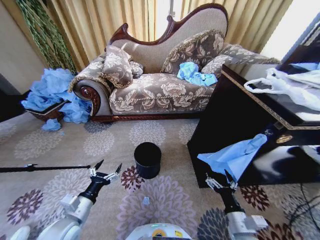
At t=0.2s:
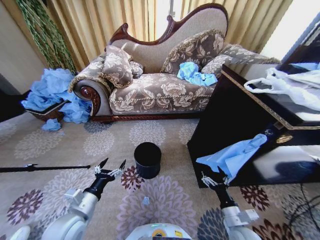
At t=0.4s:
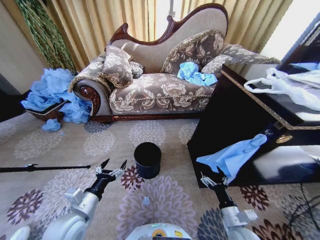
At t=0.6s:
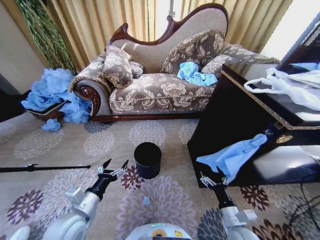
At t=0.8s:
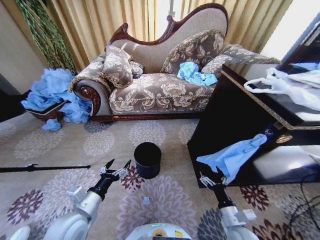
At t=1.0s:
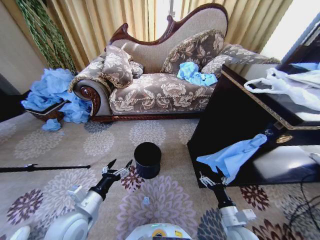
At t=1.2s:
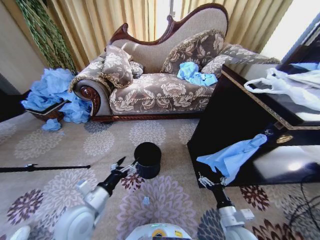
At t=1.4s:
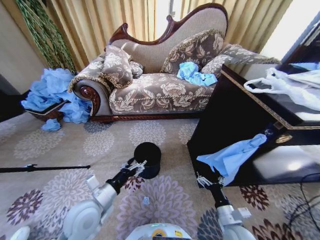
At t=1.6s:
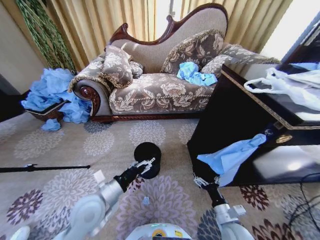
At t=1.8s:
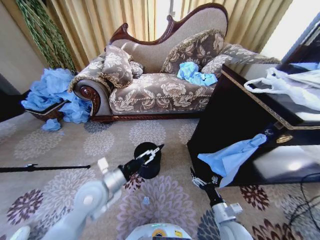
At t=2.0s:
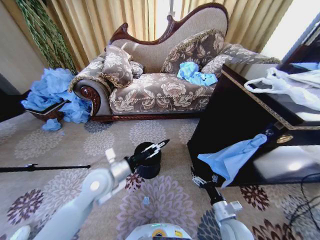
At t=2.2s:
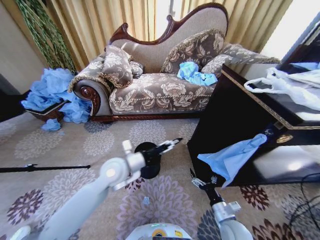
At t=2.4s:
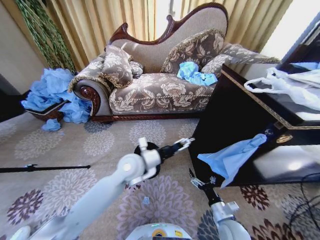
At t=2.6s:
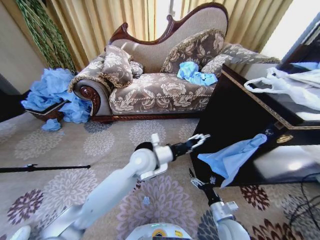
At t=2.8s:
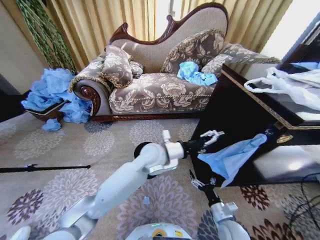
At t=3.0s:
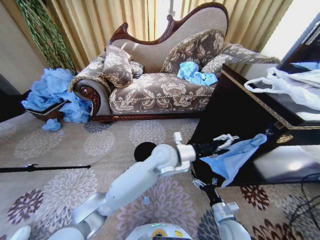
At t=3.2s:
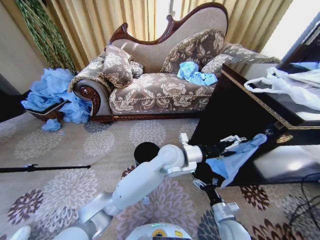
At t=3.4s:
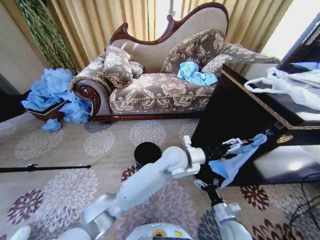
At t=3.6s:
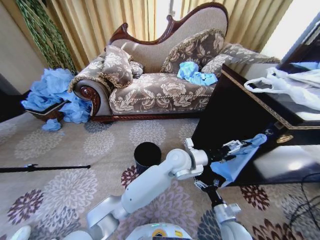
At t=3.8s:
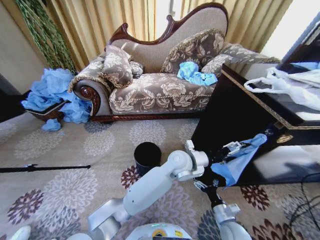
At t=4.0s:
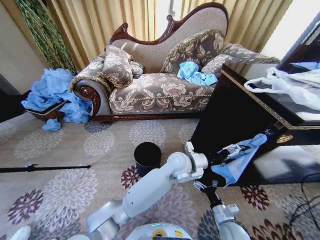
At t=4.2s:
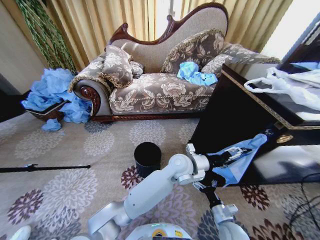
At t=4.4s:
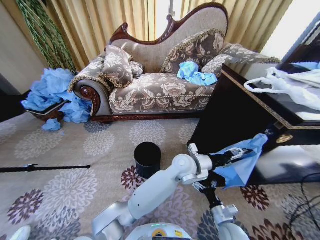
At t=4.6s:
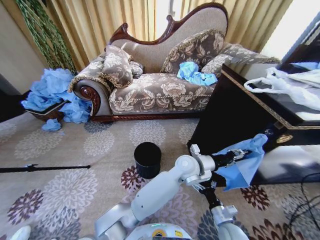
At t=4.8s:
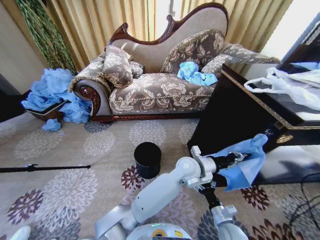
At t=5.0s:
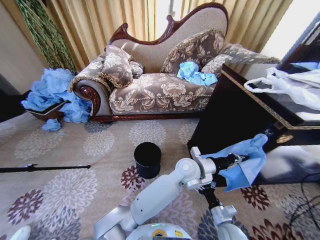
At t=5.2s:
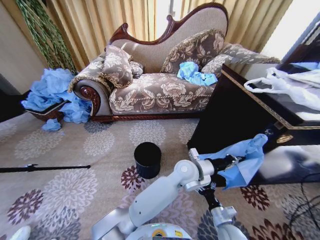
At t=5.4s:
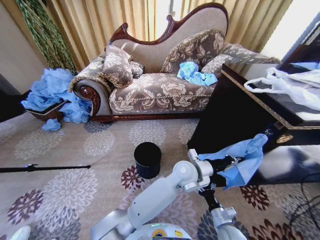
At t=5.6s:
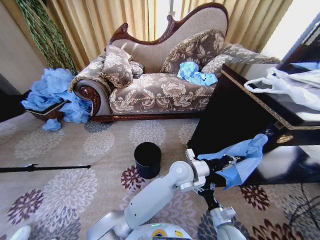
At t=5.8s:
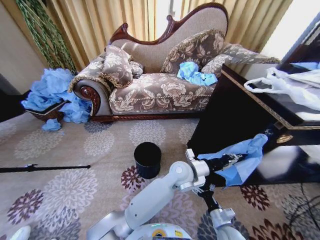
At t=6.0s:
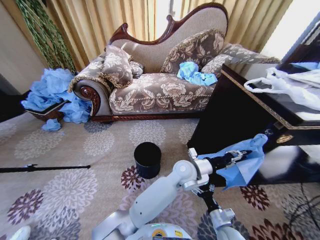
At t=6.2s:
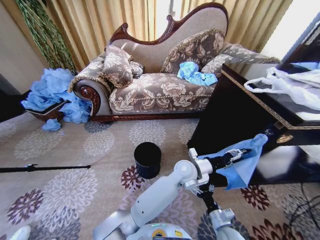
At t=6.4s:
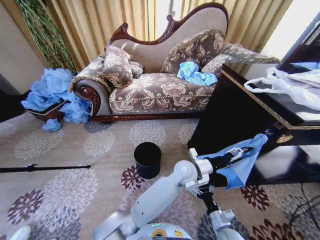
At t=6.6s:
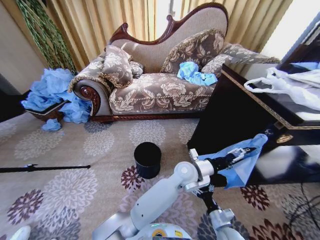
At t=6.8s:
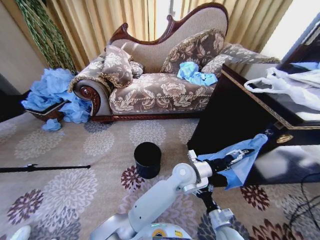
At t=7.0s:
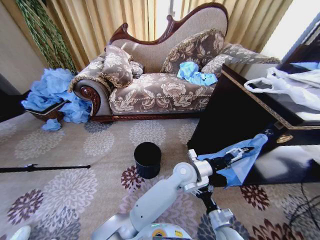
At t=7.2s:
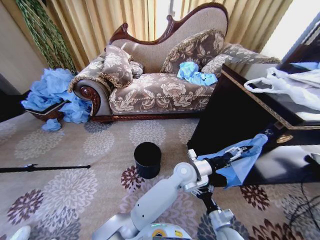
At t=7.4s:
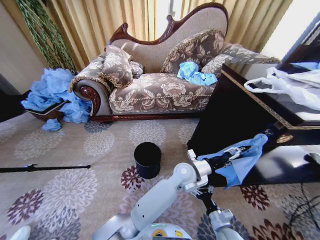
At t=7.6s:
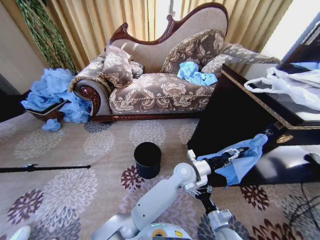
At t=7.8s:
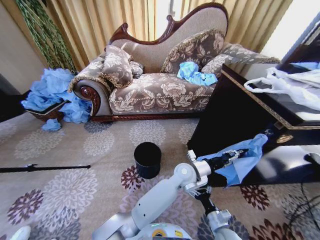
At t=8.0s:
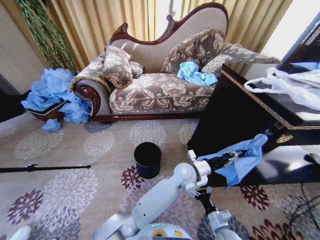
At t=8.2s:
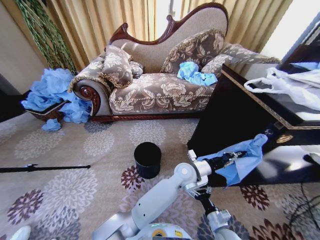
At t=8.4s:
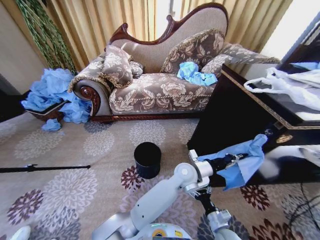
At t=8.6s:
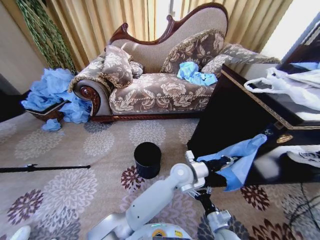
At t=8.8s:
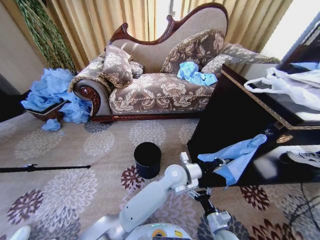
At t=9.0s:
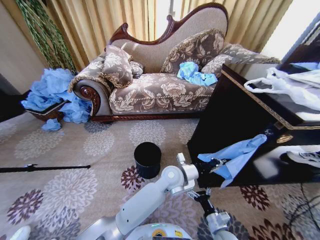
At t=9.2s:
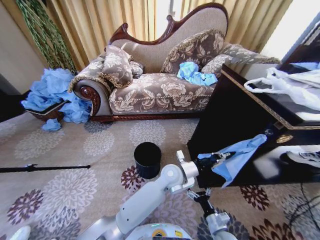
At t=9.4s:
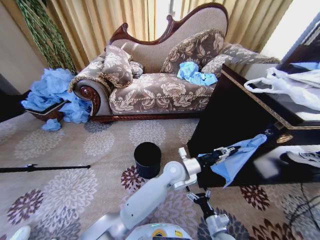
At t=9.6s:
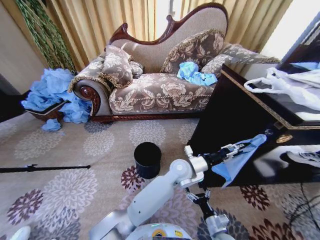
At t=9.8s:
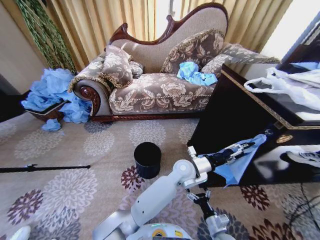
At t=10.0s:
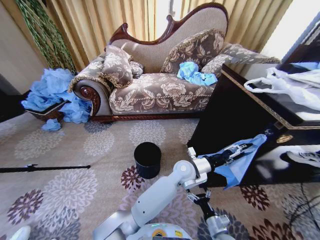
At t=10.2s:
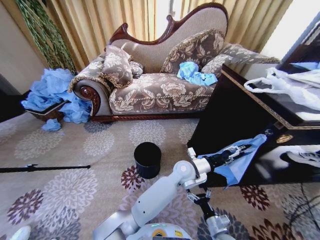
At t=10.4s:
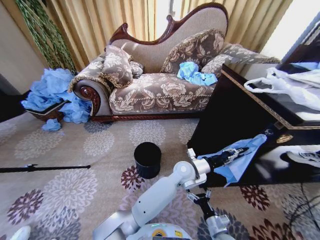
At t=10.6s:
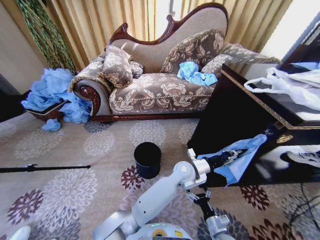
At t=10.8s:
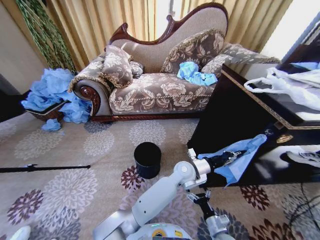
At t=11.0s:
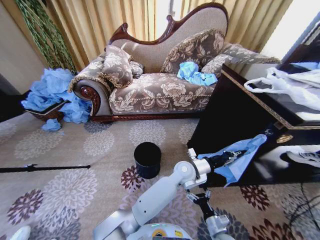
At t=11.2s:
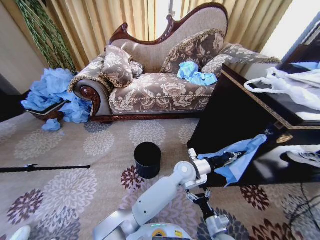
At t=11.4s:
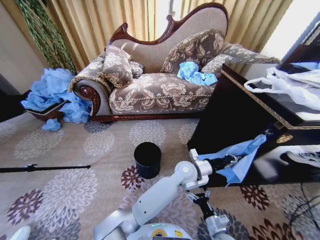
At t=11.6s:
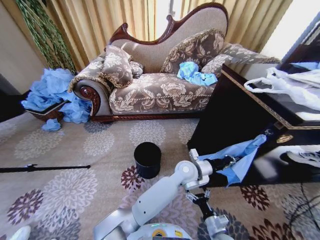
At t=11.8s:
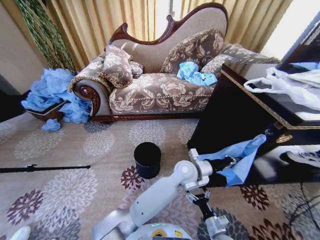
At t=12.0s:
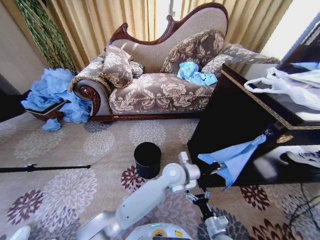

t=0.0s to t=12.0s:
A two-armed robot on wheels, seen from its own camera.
Task of the whole recording: Place a garbage bag over the trash bin.
t=1.6s to t=3.0s: The left gripper moves to the right and forward, some 25 cm.
t=3.0s to t=4.4s: The left gripper goes roughly 10 cm to the right and downward.
t=4.4s to t=6.0s: The left gripper closes, then reopens.
t=6.0s to t=7.6s: The grippers stay close to where they were, moving slightly.
t=7.6s to t=9.0s: The left gripper is displaced to the left by some 5 cm, and closes.
t=9.0s to t=10.4s: The left gripper travels to the right by about 5 cm, and opens.
t=10.4s to t=12.0s: The left gripper moves approximately 5 cm, and closes.

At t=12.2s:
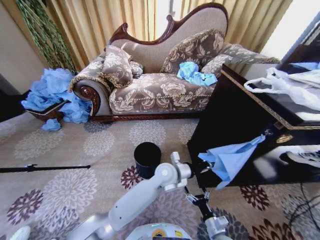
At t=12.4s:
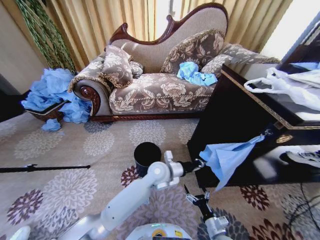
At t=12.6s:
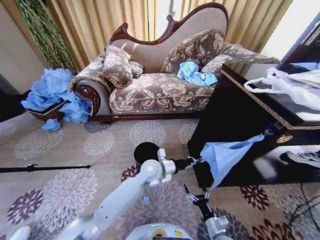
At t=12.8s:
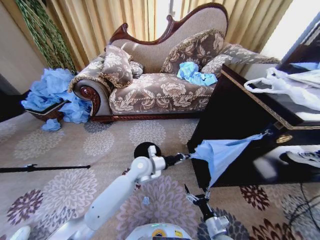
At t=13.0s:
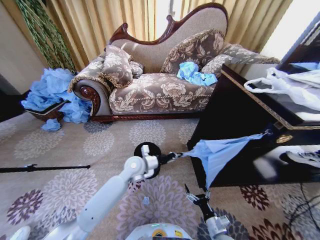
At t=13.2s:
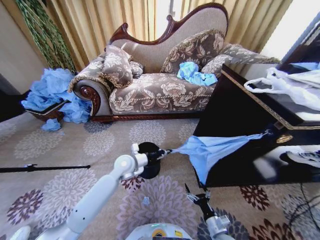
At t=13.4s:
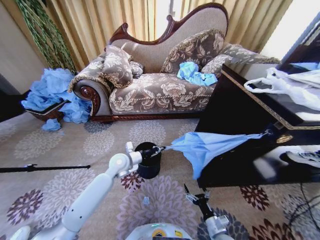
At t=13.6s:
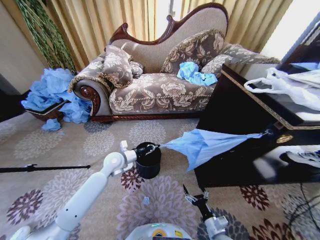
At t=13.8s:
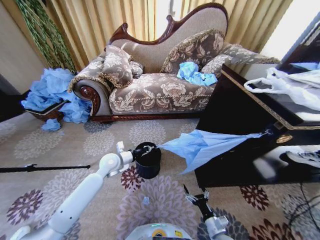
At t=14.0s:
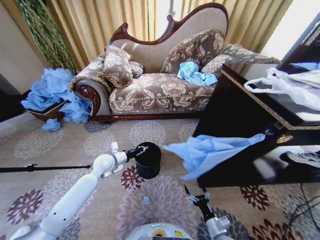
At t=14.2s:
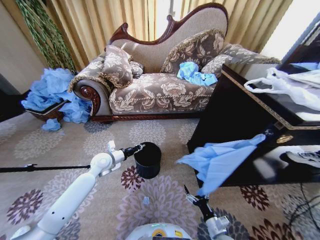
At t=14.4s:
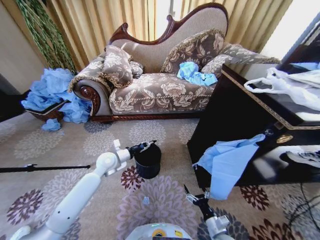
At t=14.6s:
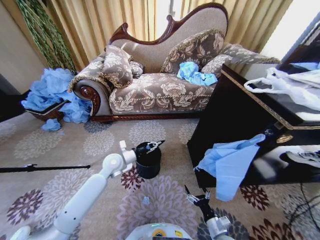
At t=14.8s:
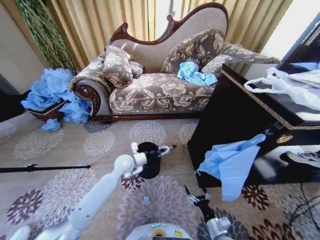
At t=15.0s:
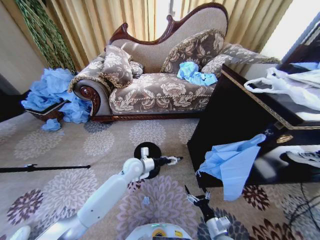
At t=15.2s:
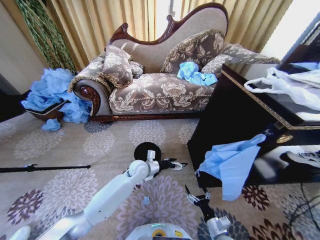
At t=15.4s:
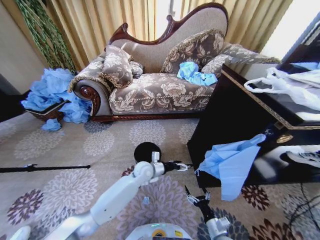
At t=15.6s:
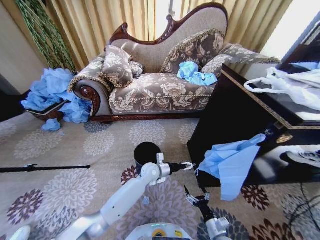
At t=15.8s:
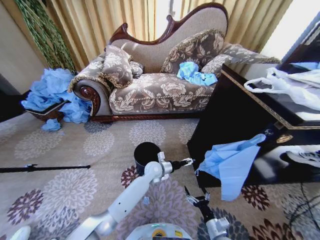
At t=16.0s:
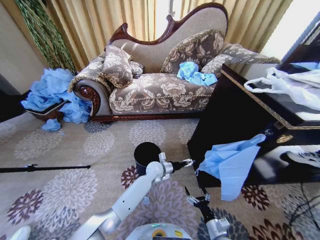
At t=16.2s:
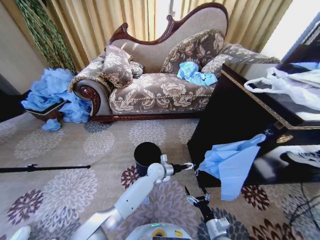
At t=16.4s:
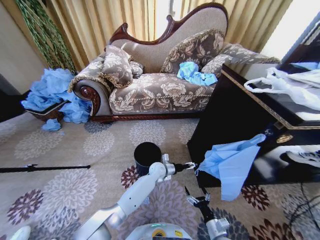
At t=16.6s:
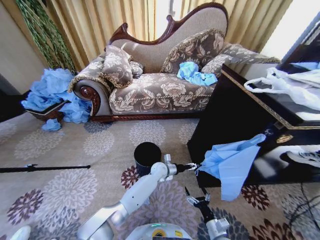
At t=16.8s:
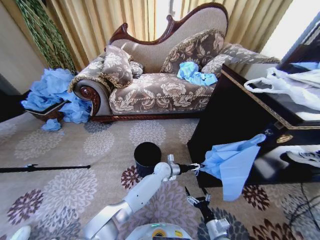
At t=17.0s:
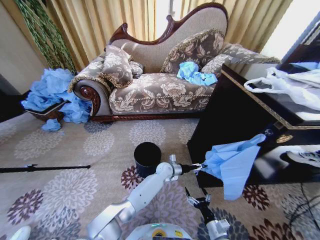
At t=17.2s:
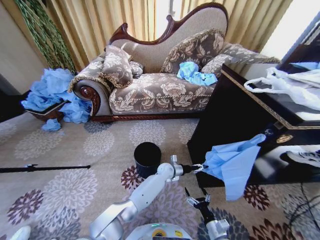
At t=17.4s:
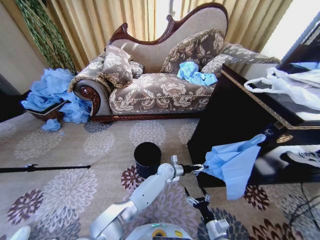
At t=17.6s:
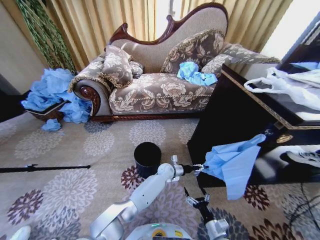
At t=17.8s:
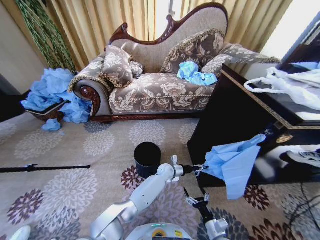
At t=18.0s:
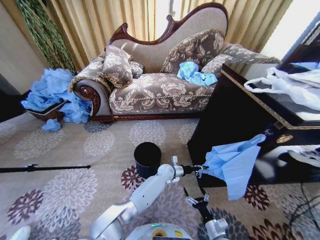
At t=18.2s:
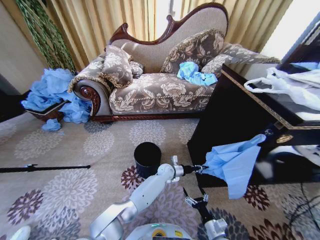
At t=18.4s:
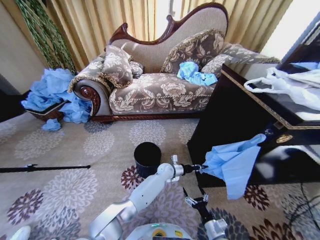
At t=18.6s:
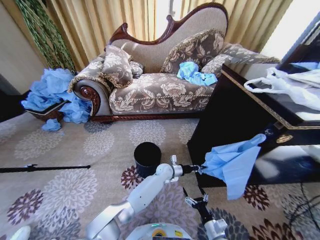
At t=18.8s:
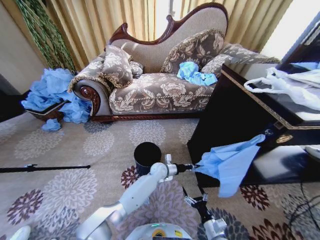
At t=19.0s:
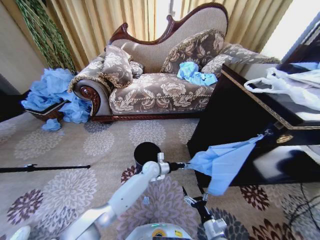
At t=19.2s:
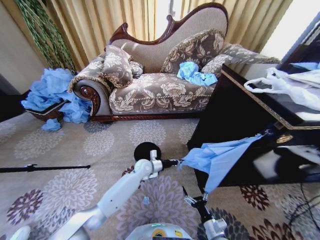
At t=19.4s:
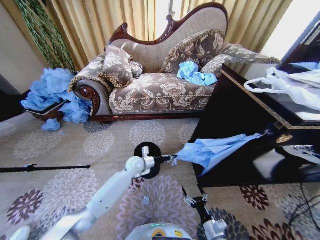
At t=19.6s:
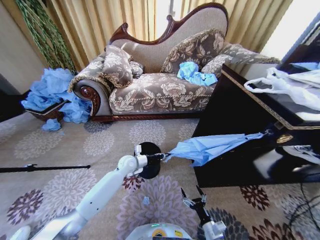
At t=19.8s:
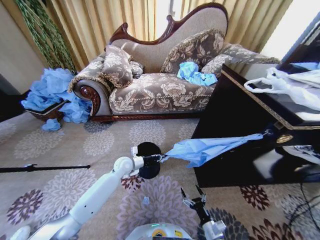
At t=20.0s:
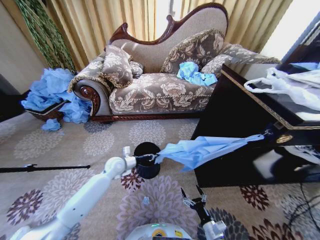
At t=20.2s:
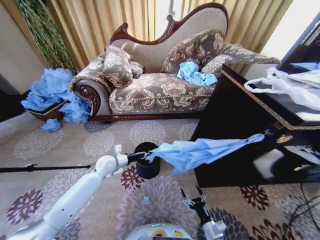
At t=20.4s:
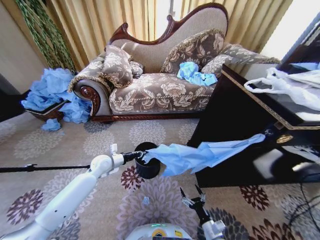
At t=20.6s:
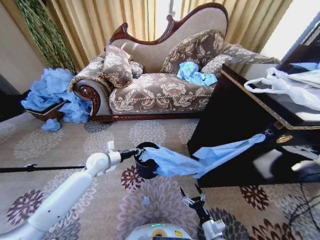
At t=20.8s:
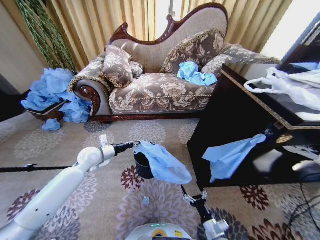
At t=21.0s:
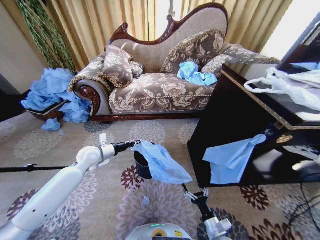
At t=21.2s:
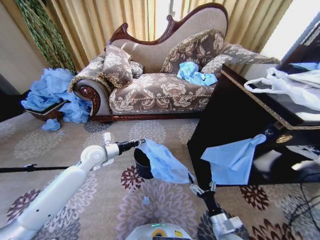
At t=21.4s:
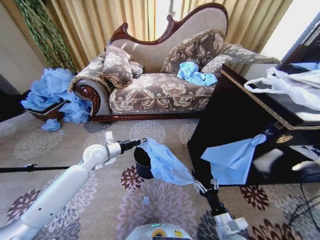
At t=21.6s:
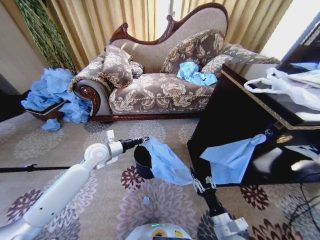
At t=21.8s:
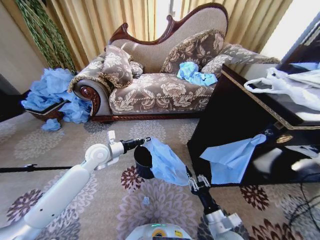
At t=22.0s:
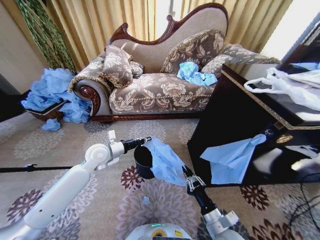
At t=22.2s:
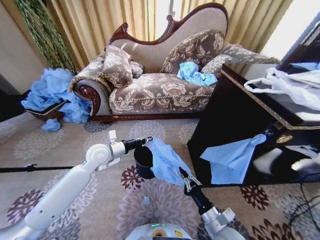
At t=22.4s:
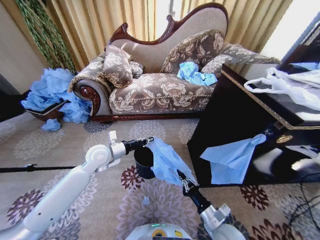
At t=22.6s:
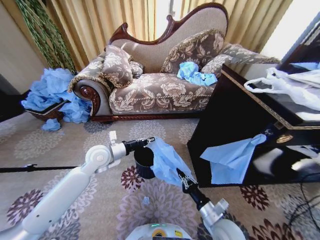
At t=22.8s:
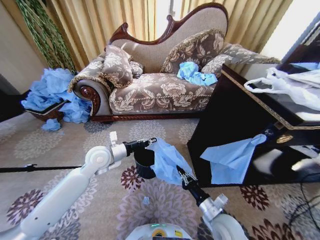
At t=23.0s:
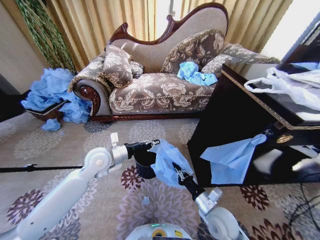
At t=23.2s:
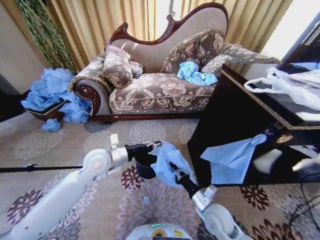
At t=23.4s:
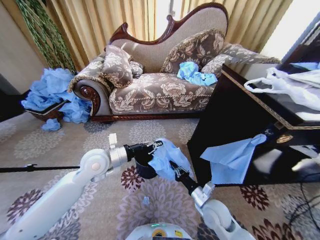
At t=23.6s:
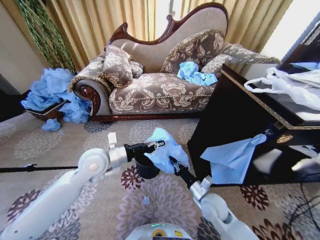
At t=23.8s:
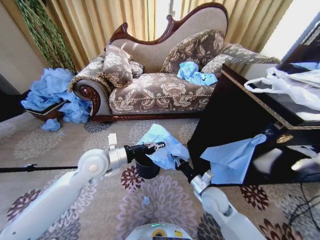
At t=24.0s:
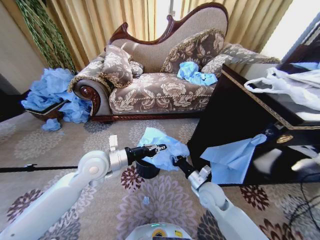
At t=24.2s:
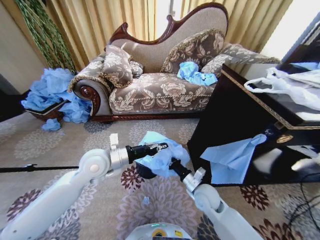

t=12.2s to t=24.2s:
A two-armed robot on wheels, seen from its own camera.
Task of the whole recording: Place a garbage bag over the trash bin.
t=12.2s to t=13.8s: The left gripper travels to the left by approximately 25 cm.
t=13.8s to t=15.2s: The left gripper goes roughly 15 cm to the right, and opens its fingers.
t=15.2s to t=16.6s: The left gripper heads to the right and downward, covering approximately 15 cm.
t=16.6s to t=18.2s: The left gripper closes up.
t=18.2s to t=19.8s: The left gripper is displaced to the left and upward by approximately 25 cm.
t=19.8s to t=21.2s: The left gripper goes approximately 15 cm upward and to the left; the right gripper travels upward by some 10 cm.
t=21.2s to t=22.6s: The left gripper changes place by about 5 cm, while the right gripper ends up approximately 5 cm from where it was, and closes.
t=22.6s to t=24.2s: The right gripper heads forward, covering about 10 cm, while the left gripper shifts approximately 5 cm backward.
